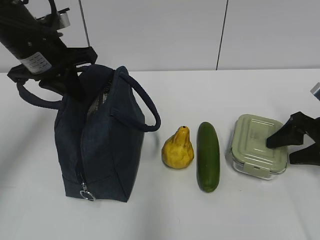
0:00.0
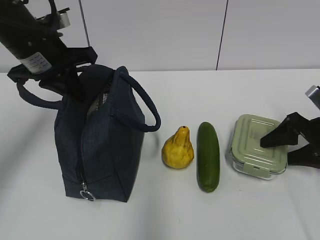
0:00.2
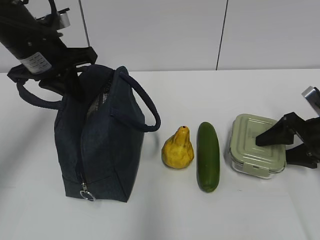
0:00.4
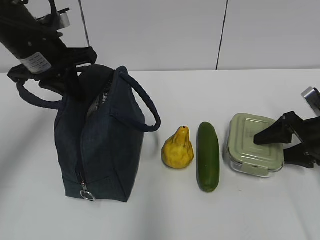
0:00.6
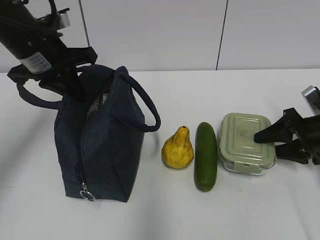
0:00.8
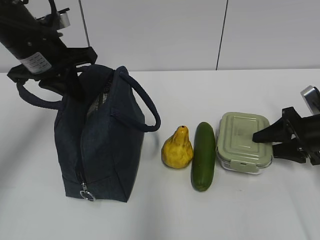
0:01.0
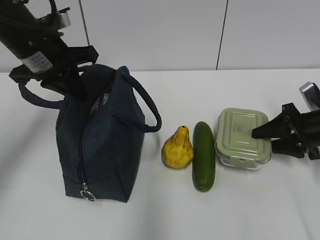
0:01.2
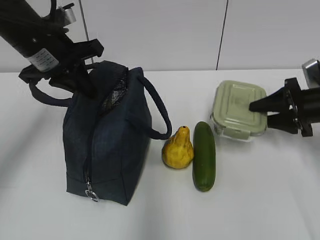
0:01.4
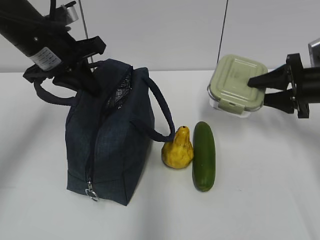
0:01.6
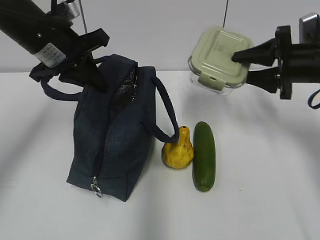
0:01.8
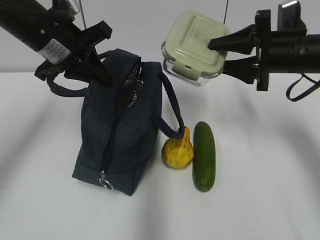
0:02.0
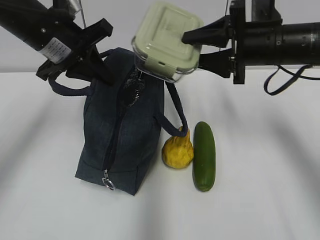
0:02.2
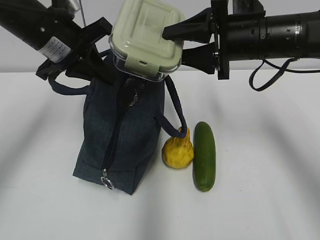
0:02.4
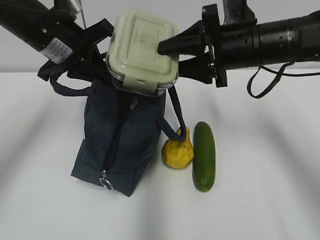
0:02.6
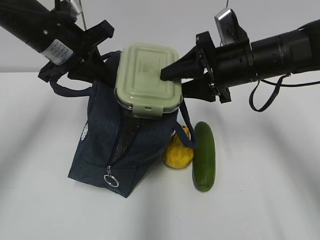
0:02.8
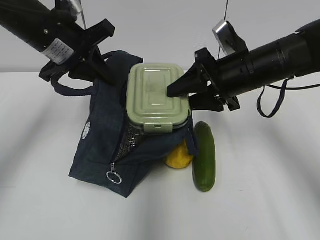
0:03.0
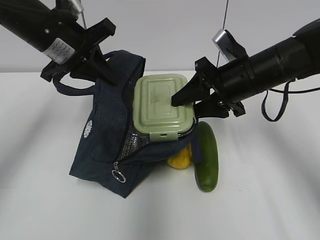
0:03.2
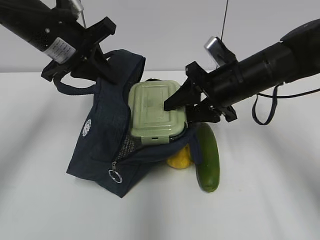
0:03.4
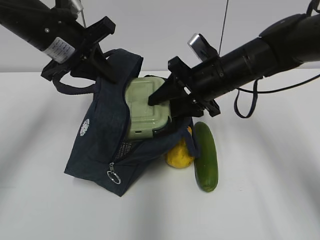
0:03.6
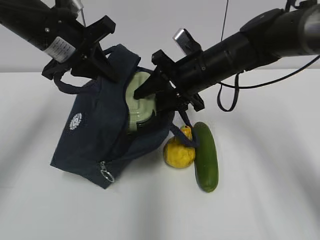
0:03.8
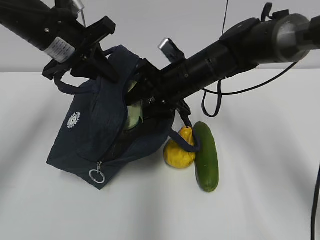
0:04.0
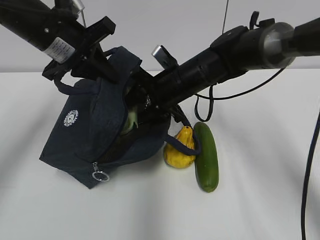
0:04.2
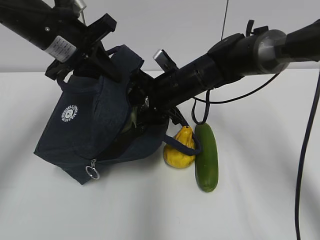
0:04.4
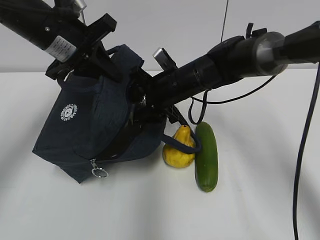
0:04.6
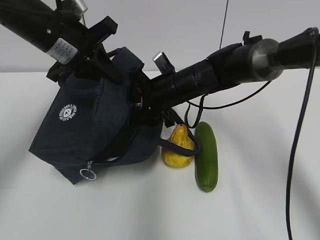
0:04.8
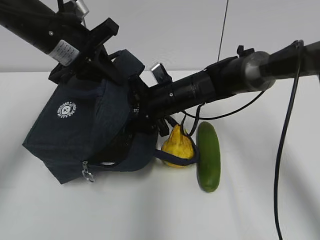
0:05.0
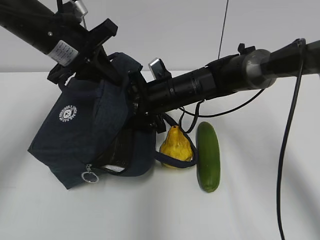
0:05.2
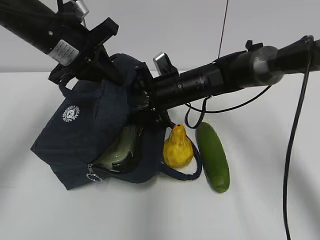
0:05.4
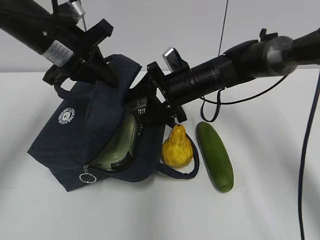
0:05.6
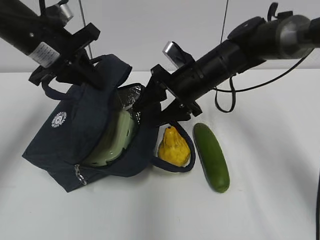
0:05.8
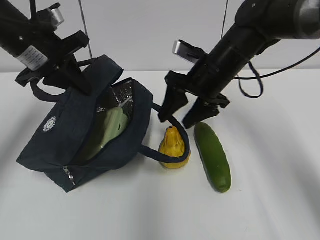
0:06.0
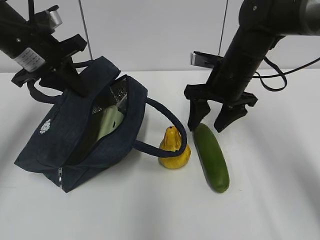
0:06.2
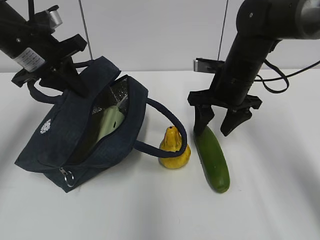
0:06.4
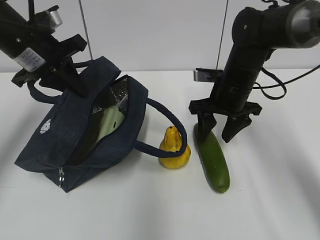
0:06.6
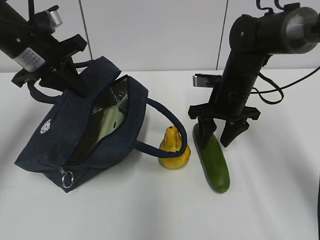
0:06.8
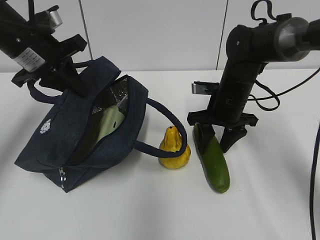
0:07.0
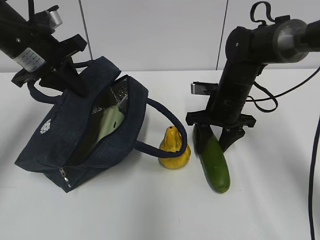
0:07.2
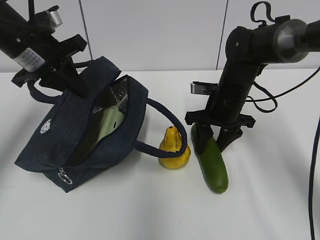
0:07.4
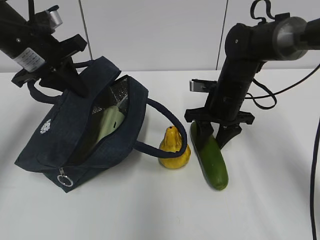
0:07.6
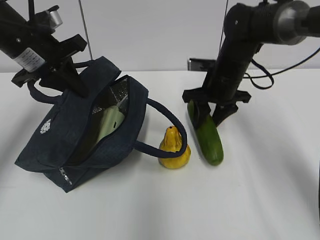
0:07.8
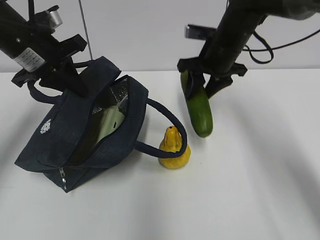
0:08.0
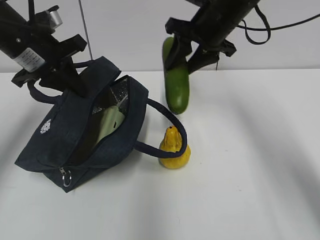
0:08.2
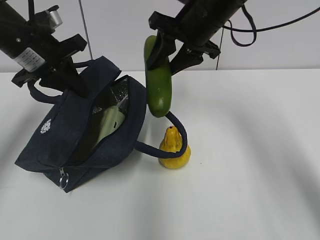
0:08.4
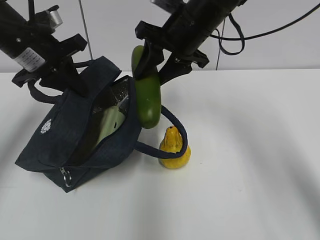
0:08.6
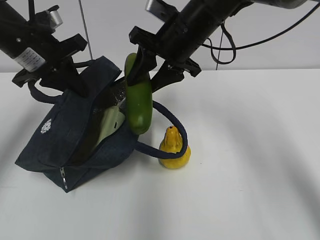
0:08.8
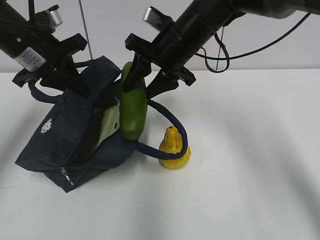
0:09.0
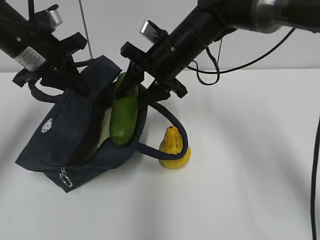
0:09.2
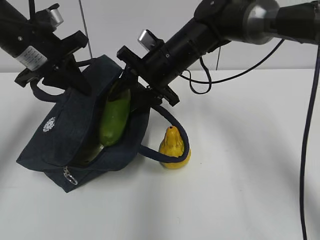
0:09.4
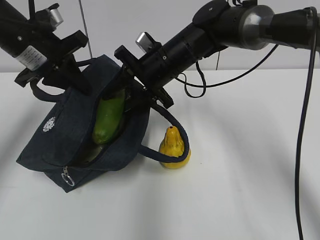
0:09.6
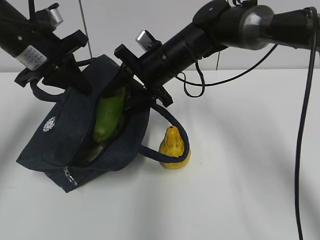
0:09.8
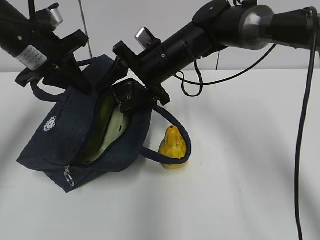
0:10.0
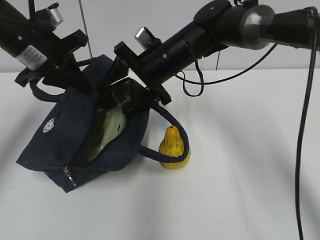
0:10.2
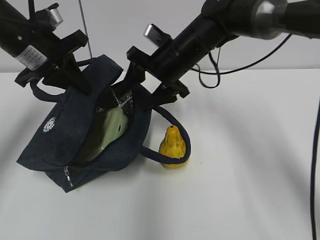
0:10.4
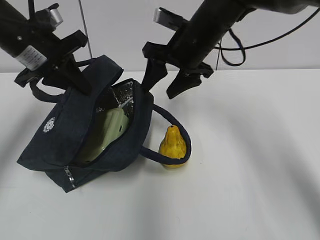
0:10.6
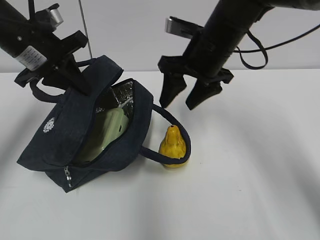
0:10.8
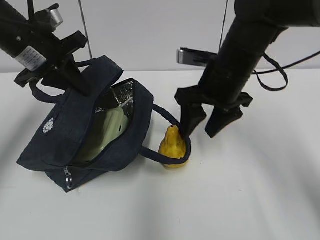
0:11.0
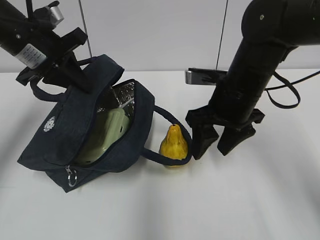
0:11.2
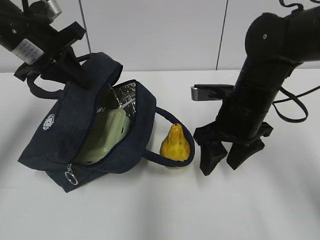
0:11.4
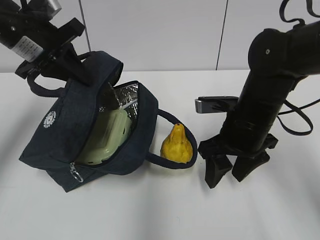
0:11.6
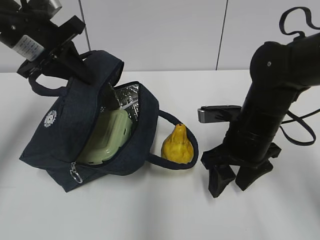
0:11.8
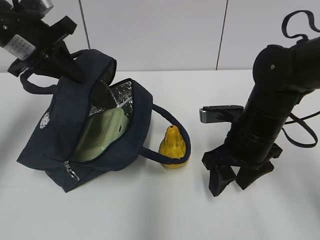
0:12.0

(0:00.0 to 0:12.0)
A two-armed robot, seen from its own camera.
Step, 0:03.0 - 0:05.6: Place it into the bag with your right hand.
Step, 0:05.8 - 0:07.4: Grab the cucumber with your right hand.
Step, 0:07.6 - 0:10.2: Place it into the bag with your right hand.
0:00.0 - 0:01.6: The right gripper goes roughly 5 cm forward, and closes up.
0:01.6 - 0:03.0: The right gripper is displaced to the left by some 15 cm.
0:03.0 - 0:04.4: The right gripper heads to the left, downward and forward, covering about 10 cm.
0:04.4 - 0:06.0: The right gripper heads to the right, covering some 5 cm, while the left gripper ends up approximately 5 cm from where it was.
0:06.0 - 0:07.6: The right gripper heads downward, covering some 5 cm.
0:07.6 - 0:09.0: The right gripper moves upward and to the left, some 15 cm.
0:09.0 - 0:10.4: The grippers make only small movements.
0:10.4 - 0:12.0: The right gripper shifts about 15 cm backward, to the right and downward.

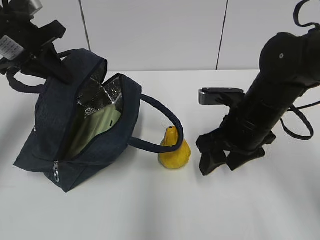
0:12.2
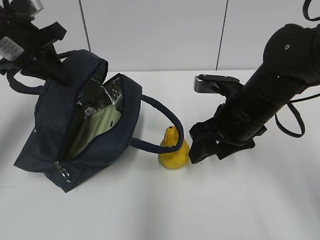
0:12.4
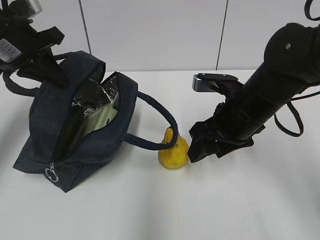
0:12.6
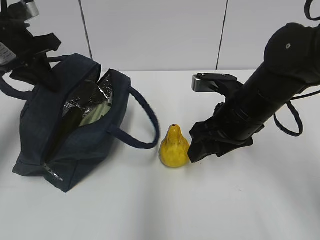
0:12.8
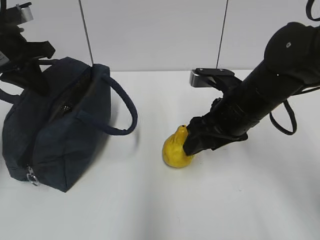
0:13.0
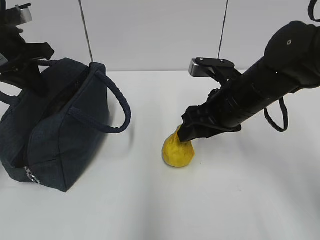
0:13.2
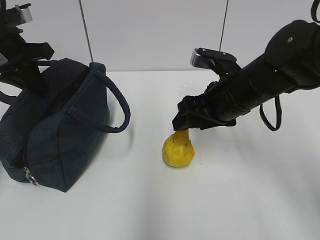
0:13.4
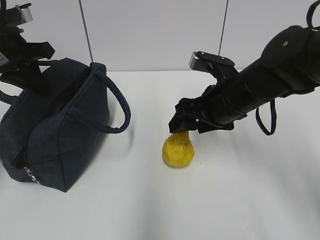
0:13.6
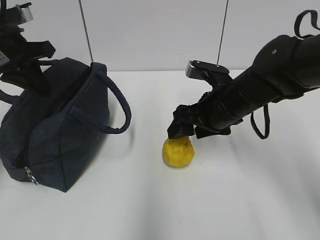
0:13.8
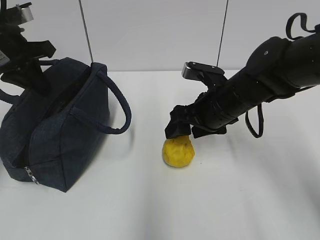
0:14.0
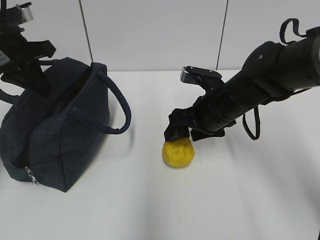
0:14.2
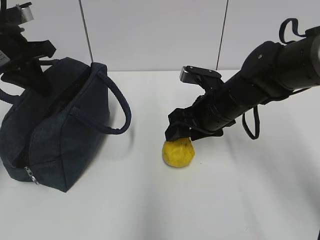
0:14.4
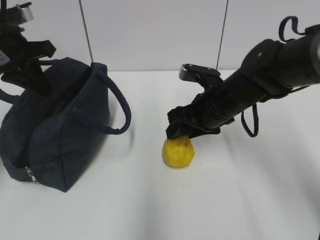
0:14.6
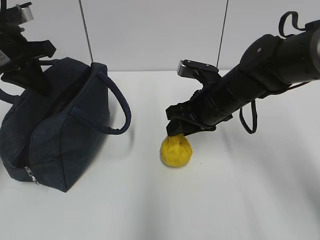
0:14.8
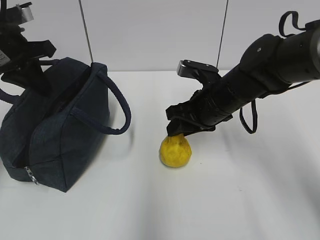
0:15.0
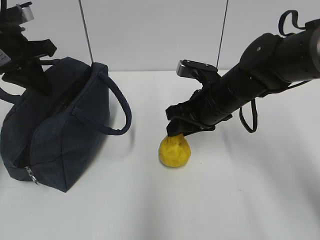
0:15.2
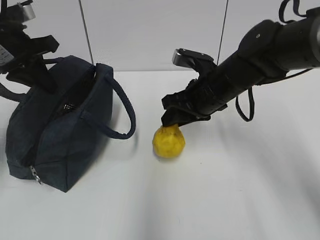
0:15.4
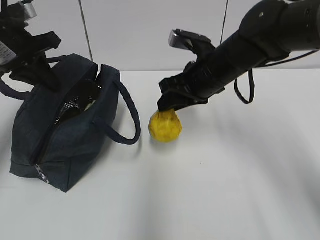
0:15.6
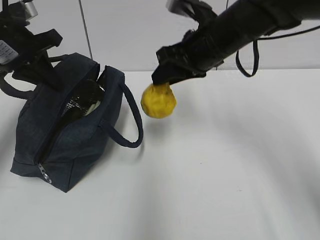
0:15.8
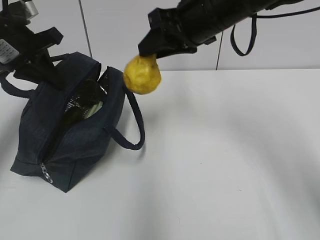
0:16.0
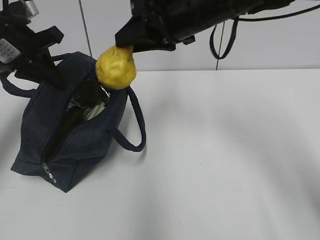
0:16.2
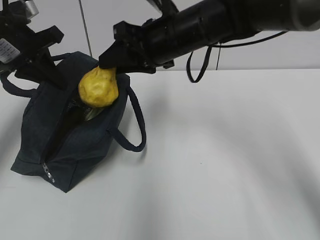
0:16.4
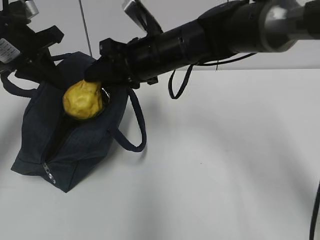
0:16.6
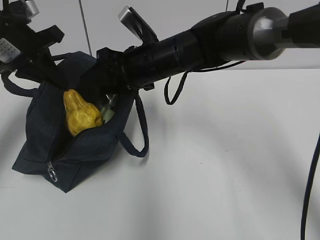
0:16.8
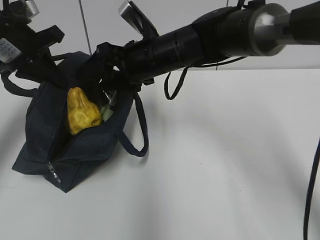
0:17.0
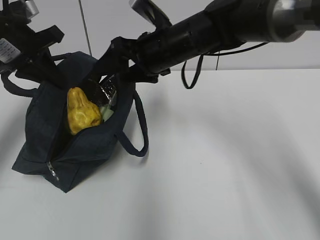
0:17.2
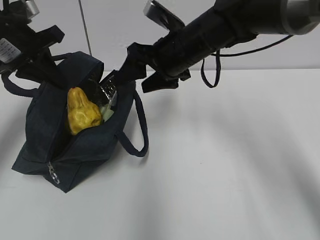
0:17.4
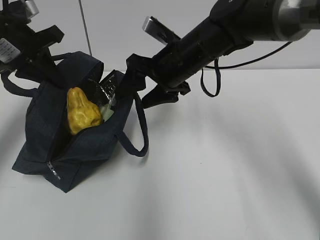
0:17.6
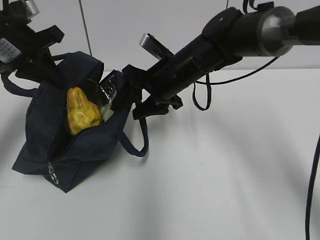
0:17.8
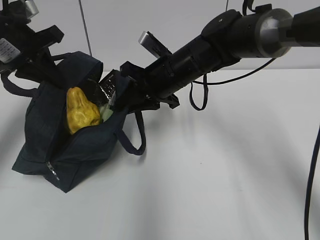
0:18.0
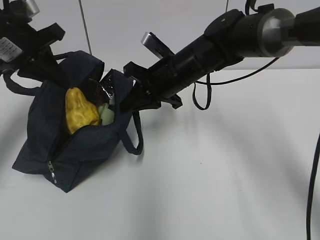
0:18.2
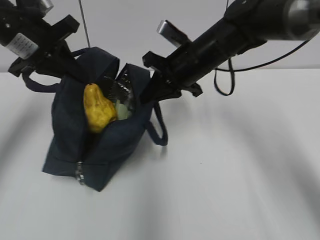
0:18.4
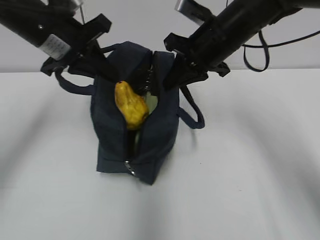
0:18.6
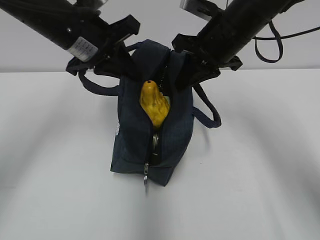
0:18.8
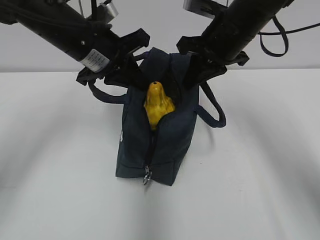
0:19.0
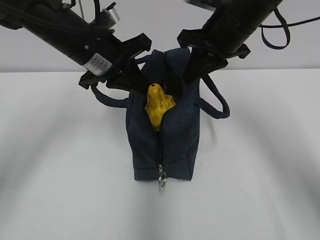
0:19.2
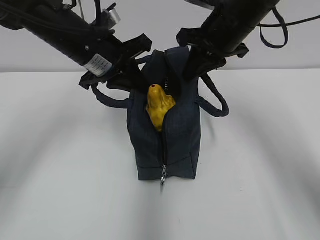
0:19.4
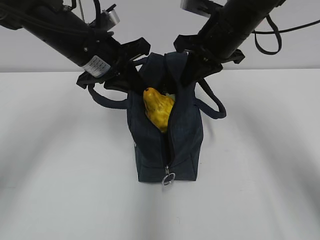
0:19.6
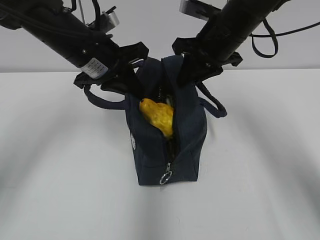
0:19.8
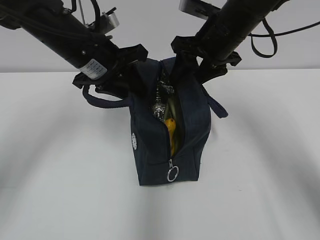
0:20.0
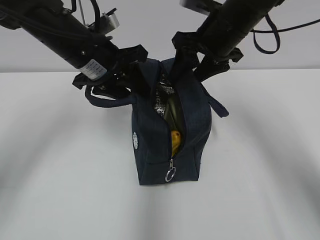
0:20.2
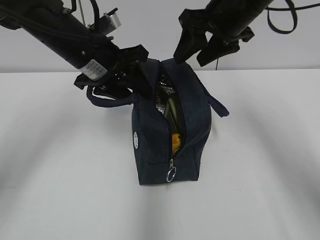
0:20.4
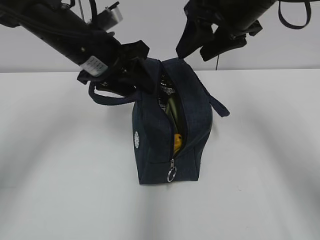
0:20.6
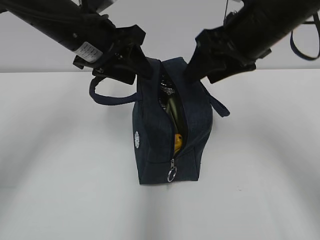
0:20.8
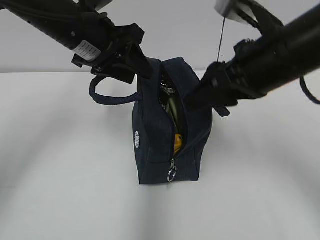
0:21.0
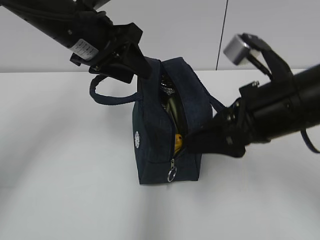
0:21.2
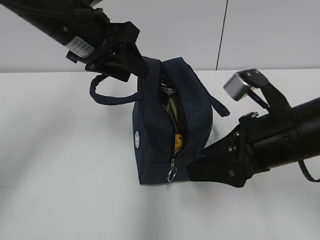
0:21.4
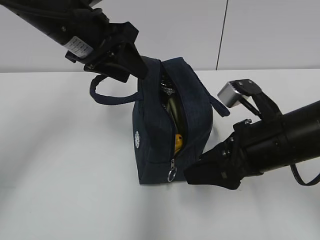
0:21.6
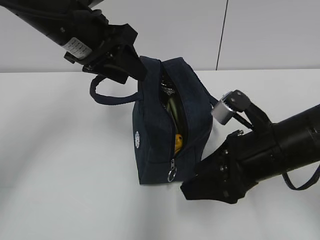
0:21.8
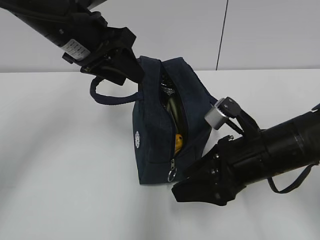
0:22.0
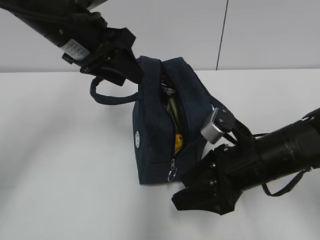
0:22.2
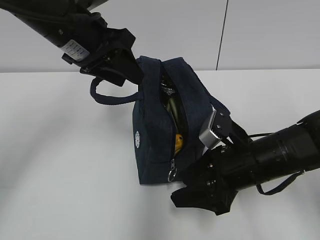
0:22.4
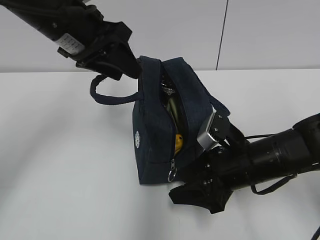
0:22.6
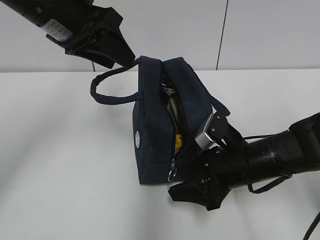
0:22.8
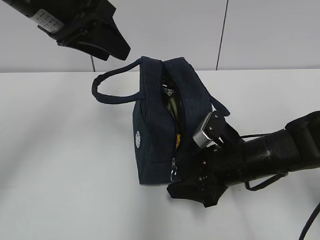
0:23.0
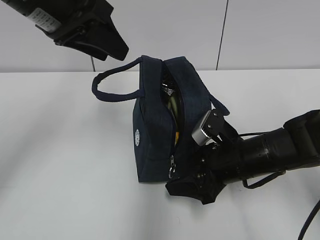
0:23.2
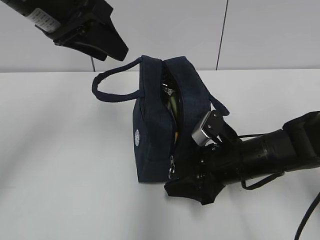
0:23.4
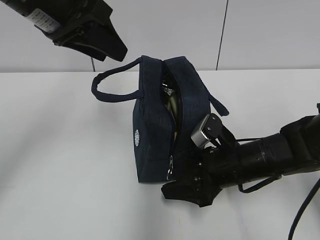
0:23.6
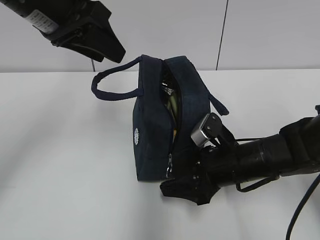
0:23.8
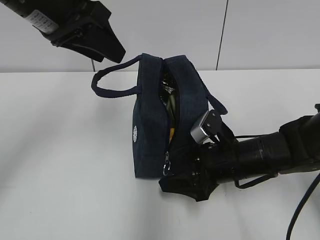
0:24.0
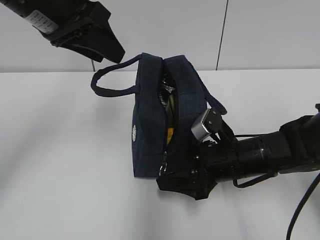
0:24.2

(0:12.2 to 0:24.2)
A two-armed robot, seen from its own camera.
Step, 0:12.2 - 0:14.8: Grab the pear with your right hand.
Step, 0:17.0 - 0:18.0: Grab the lunch bag with your right hand.
Step, 0:18.2 - 0:19.8: Move the lunch bag to the right.
0:13.8 - 0:15.2: The right gripper closes up.
0:15.2 - 0:16.6: The right gripper moves to the left and upward, roughly 10 cm.
0:16.6 - 0:18.2: The right gripper ends up approximately 5 cm from where it was, and closes up.
0:18.2 - 0:19.8: The left gripper is displaced to the right by roughly 10 cm. The right gripper travels to the right and upward by about 10 cm, and opens its fingers.
0:19.8 - 0:21.2: The right gripper goes about 15 cm backward, and opens up. The left gripper opens.
0:21.2 - 0:22.6: The right gripper is displaced downward by some 15 cm.
0:22.6 - 0:24.2: The grippers move only a little.
